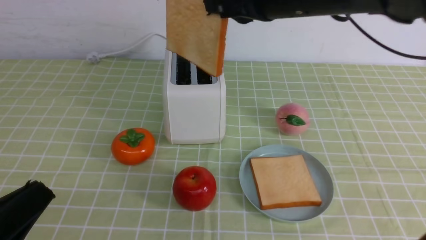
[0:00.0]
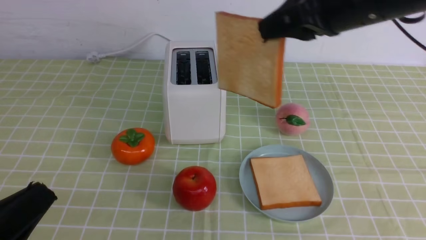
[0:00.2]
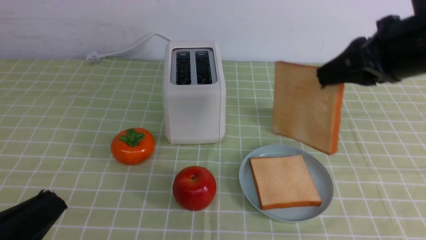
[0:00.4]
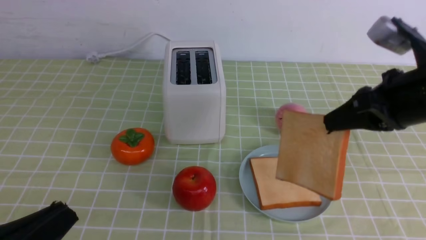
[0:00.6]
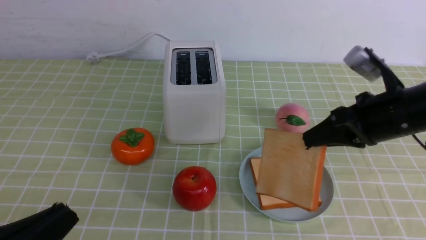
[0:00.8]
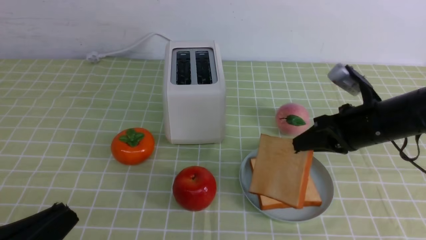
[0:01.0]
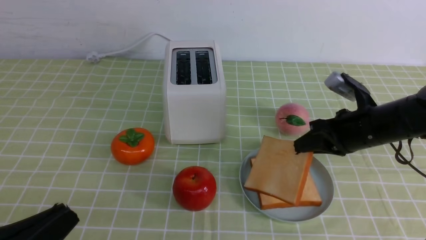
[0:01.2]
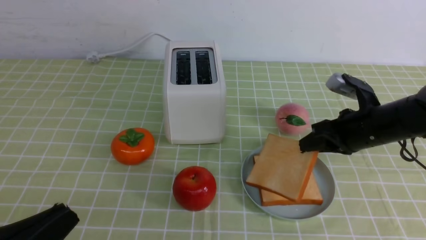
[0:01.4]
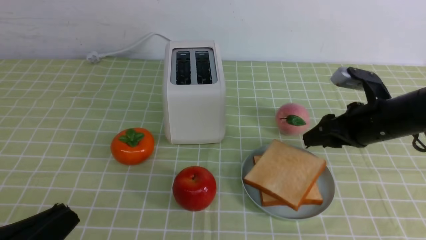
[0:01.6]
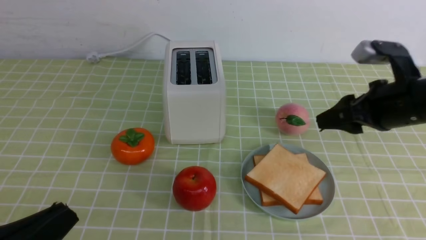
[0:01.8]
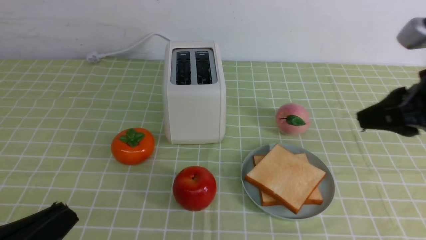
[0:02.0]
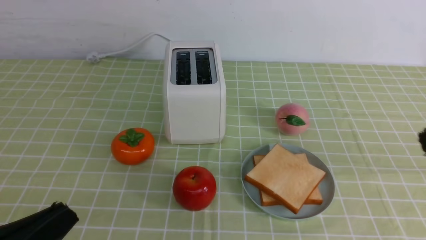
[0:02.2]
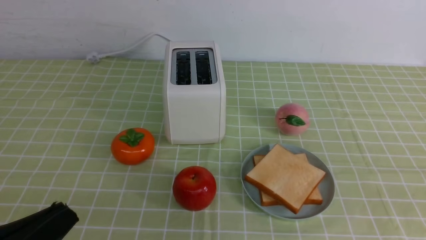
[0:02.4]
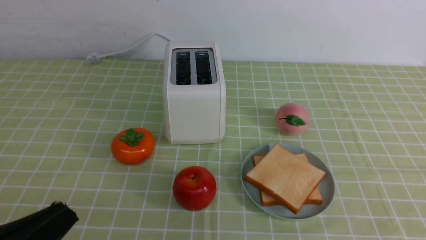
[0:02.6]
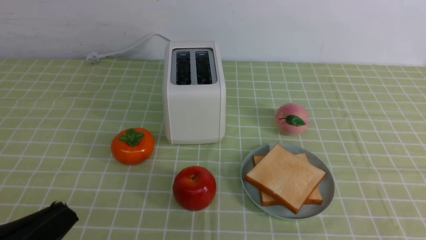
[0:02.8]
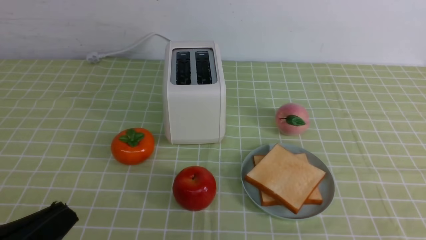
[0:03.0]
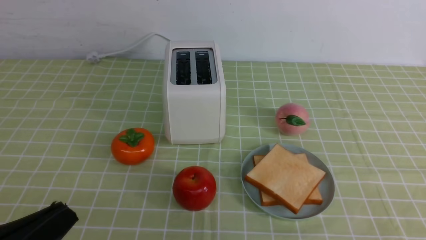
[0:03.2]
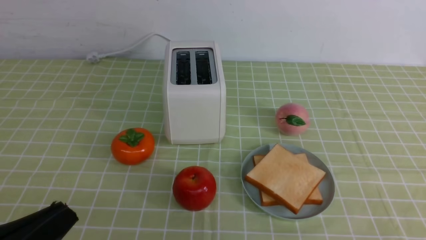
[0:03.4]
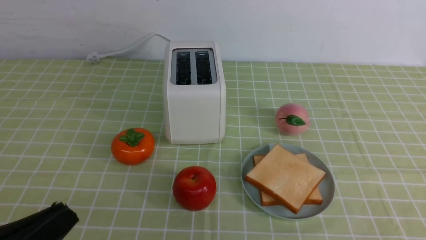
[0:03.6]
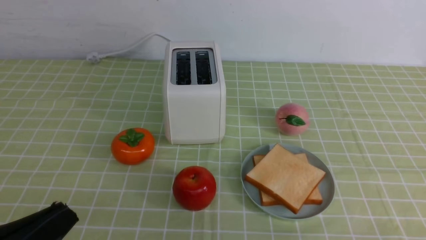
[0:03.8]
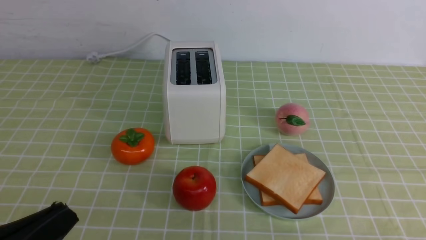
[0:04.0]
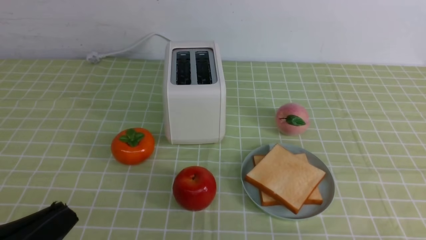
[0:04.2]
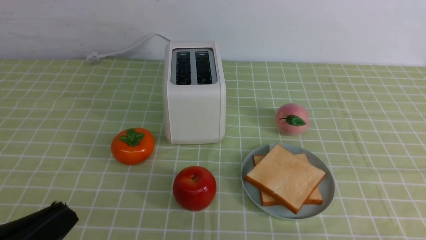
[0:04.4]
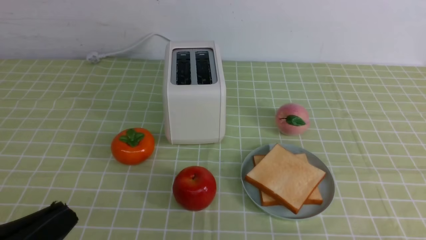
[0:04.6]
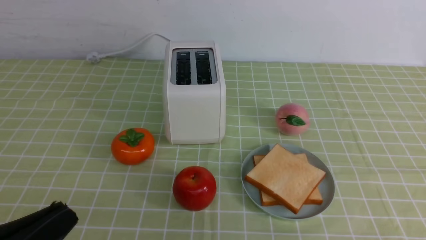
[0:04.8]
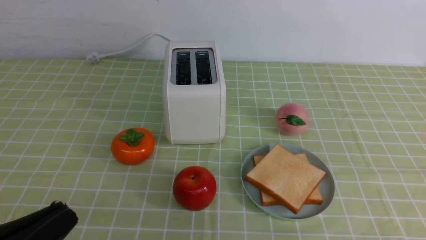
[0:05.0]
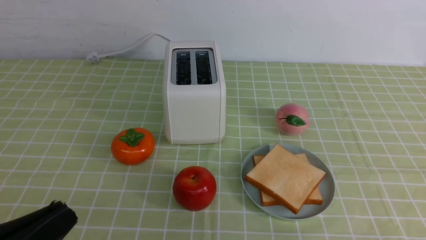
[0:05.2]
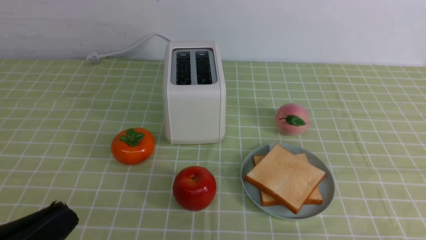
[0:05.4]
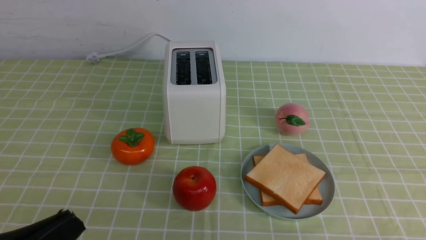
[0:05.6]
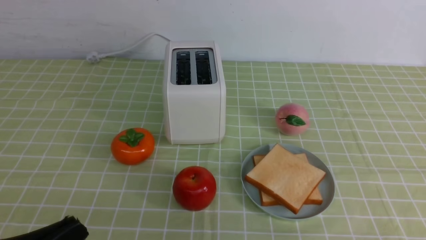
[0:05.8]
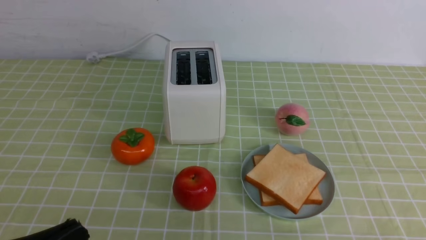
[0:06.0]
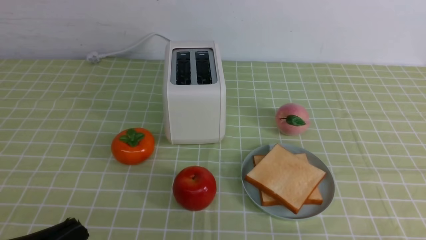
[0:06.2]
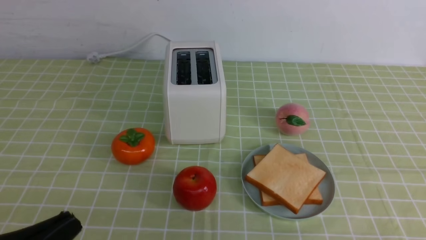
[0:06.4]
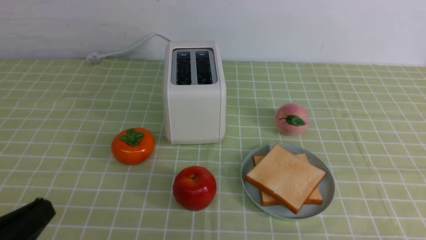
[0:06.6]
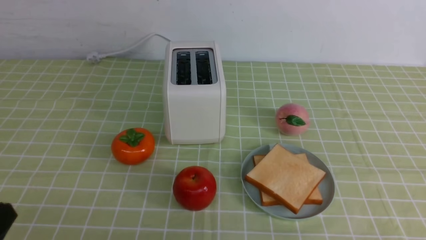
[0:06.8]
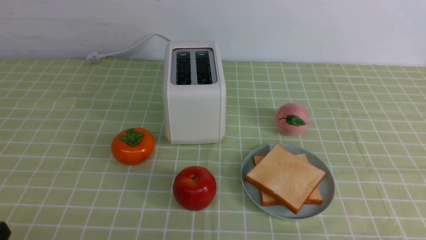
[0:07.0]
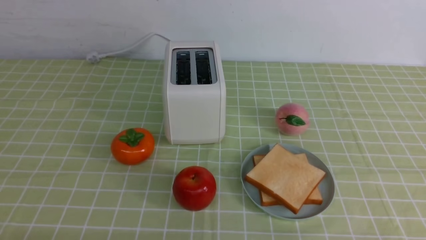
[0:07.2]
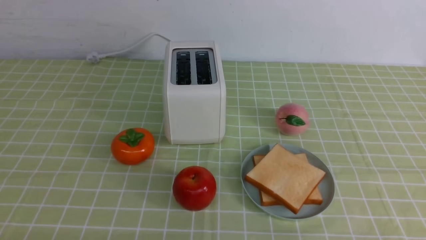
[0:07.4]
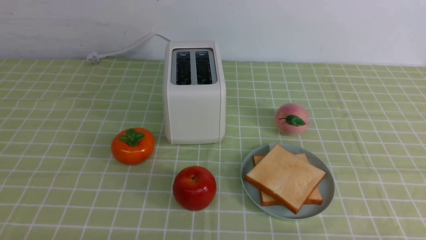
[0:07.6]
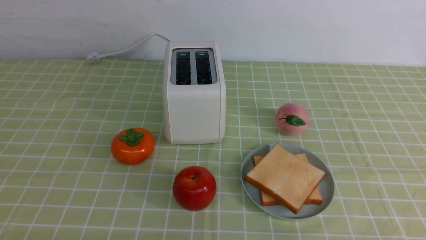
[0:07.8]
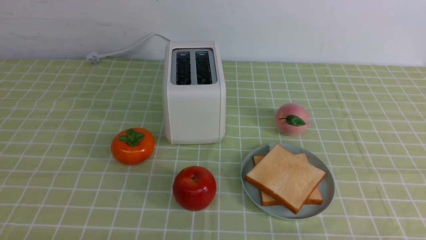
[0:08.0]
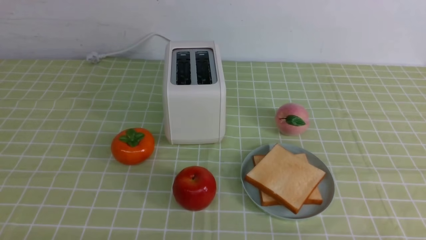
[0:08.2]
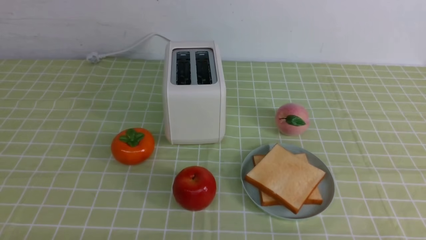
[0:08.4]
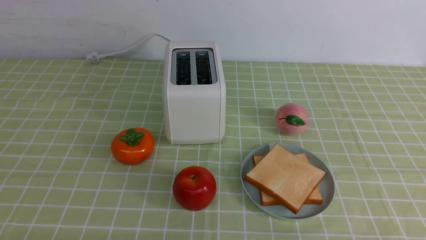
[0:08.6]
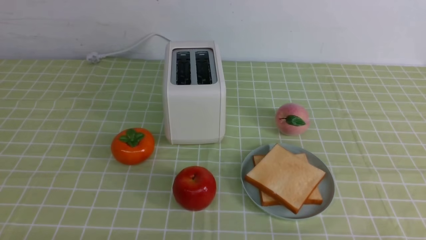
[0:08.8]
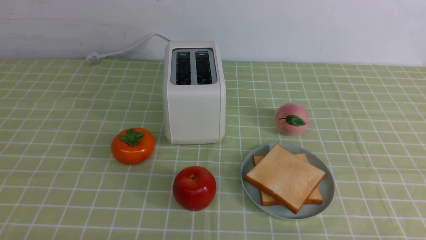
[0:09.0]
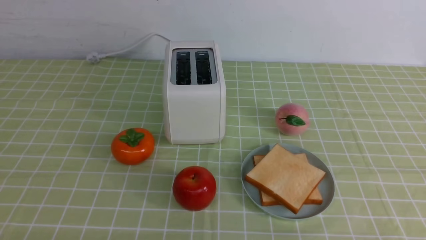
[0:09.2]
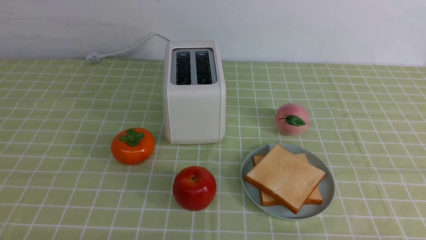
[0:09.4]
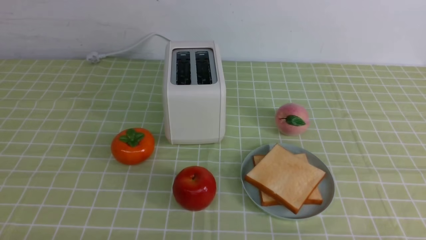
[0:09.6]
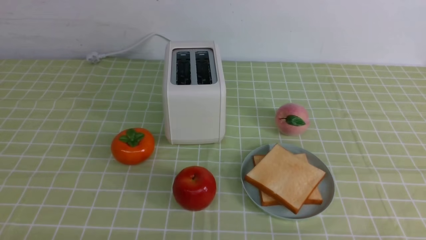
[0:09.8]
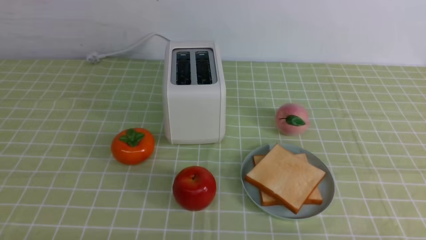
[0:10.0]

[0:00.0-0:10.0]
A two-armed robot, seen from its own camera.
Task of the whole recording: take toasted bread from bread machine on green coffee tablecloth place on plate.
Step, 0:00.0 to 0:01.8: use the right arm to put a slice of bread into the plate.
0:00.0 to 0:01.4: The right gripper moves downward and to the right, approximately 25 cm.
0:01.4 to 0:02.8: The right gripper travels backward by some 30 cm, and closes up.
0:04.2 to 0:05.8: The two grippers keep their place.
0:05.8 to 0:07.2: The left gripper heads downward, covering approximately 10 cm.
0:08.6 to 0:10.0: The two grippers keep their place.

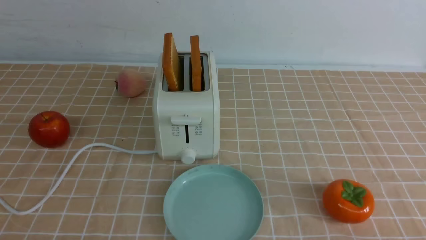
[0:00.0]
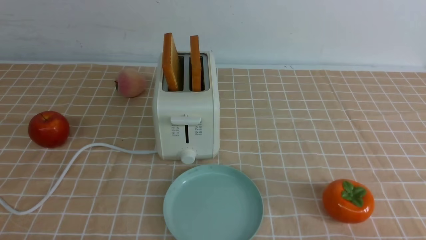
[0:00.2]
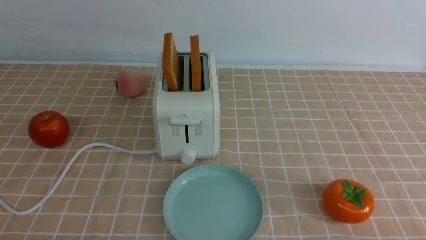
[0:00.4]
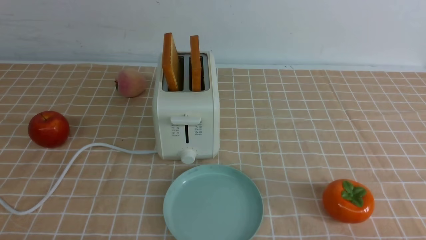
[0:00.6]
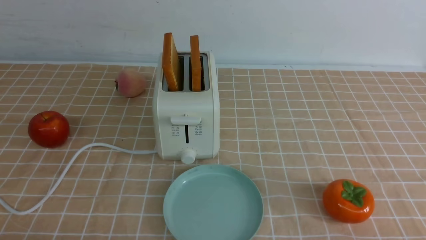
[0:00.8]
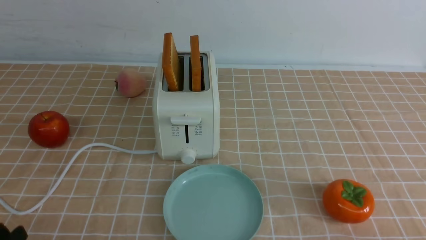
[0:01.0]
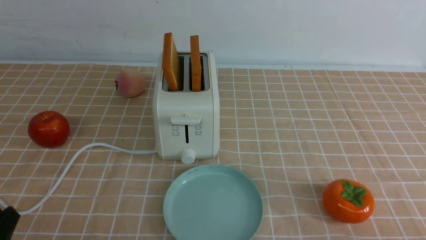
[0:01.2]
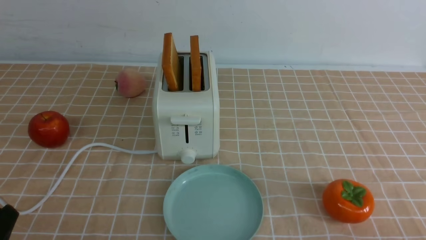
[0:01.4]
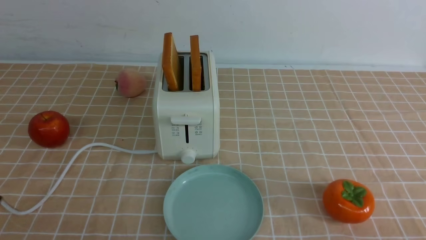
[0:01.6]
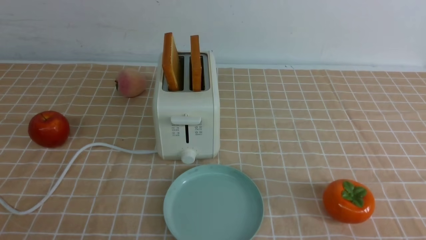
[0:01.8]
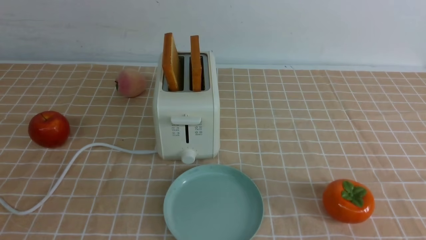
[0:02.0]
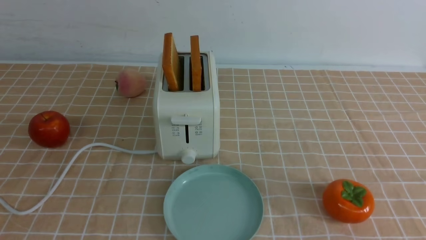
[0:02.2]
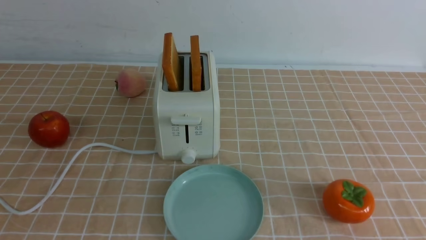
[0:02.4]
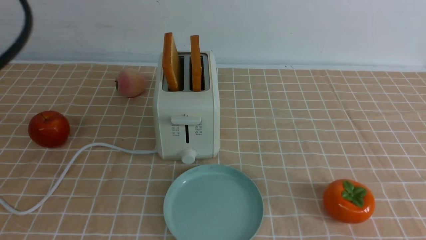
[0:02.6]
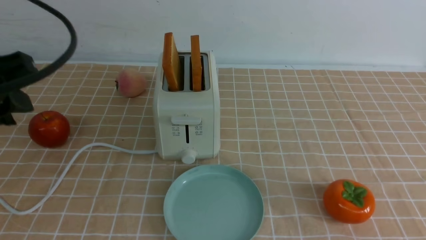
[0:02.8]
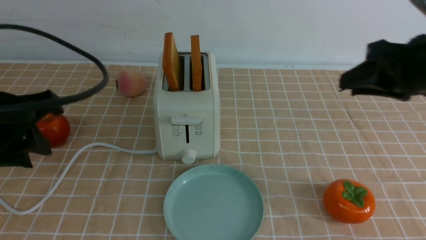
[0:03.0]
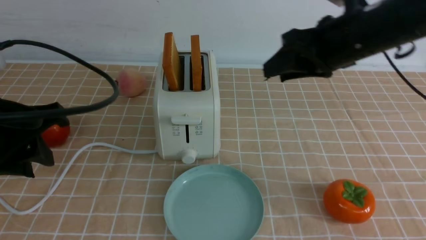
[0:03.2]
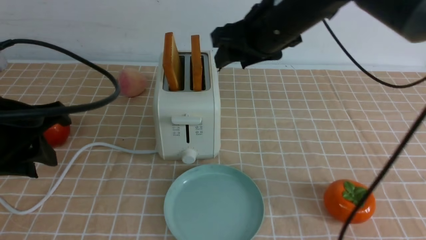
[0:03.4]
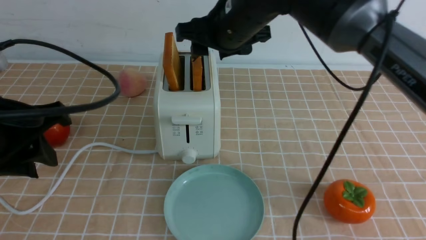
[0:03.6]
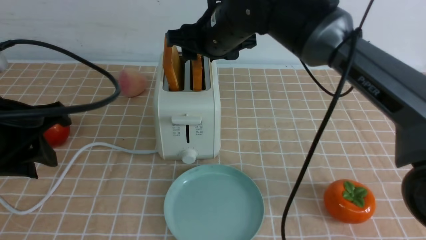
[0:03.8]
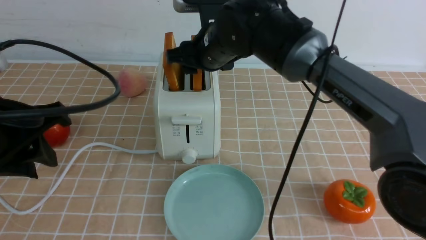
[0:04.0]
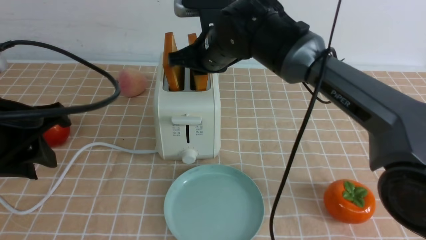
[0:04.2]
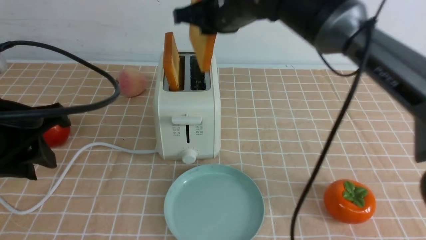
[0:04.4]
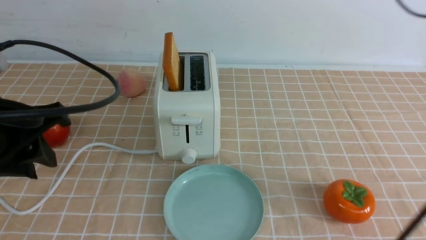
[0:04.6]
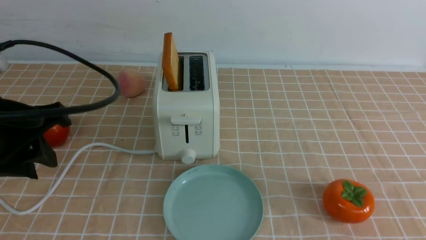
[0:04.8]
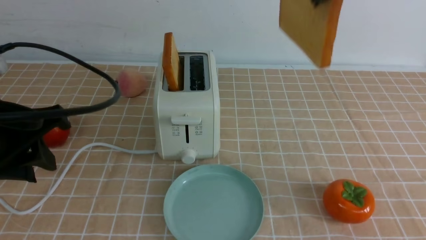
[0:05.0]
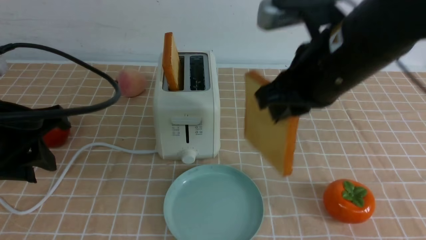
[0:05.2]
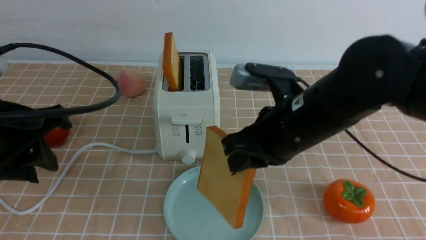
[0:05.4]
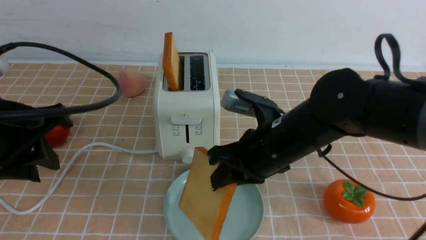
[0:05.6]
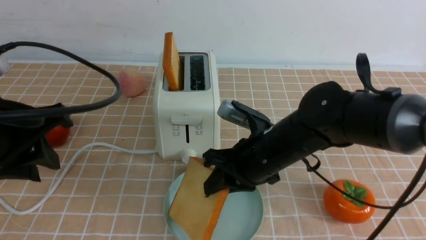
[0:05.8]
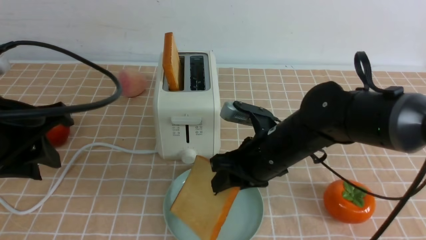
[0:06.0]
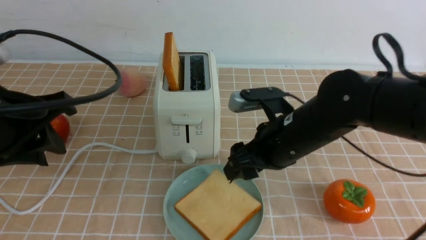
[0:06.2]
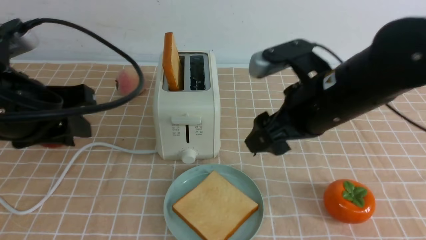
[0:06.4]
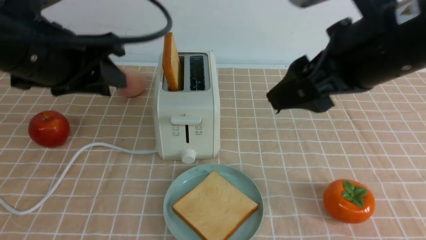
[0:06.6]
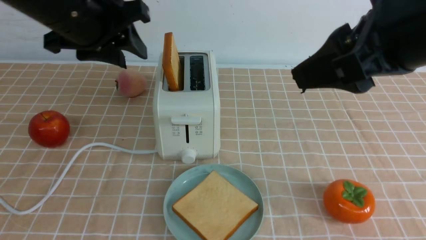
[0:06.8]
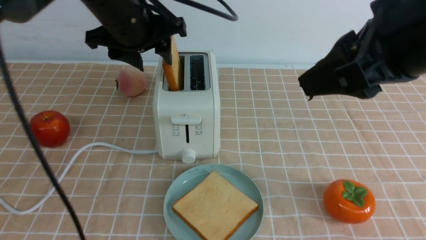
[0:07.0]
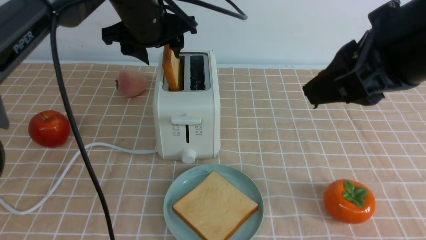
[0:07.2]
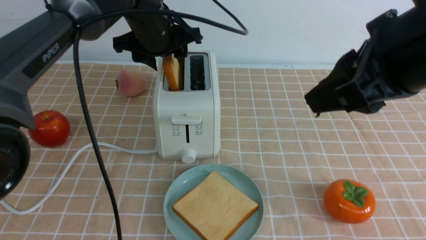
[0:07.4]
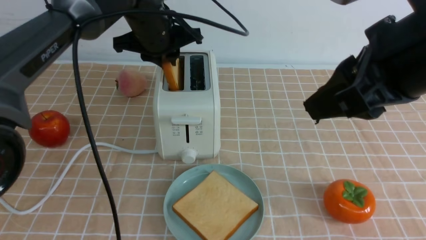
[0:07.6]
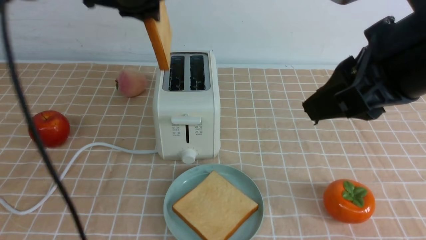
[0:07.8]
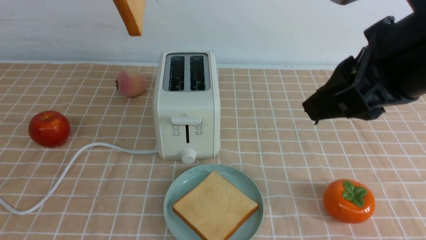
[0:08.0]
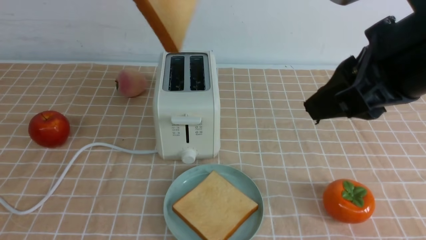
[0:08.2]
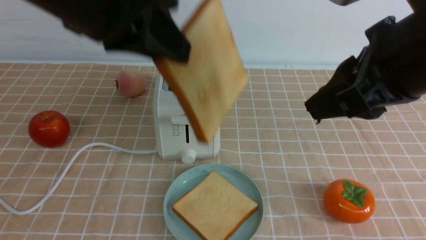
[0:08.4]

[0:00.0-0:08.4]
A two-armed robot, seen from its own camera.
Task of the whole recording: take toasted bread from bread machine on light coffee tablecloth place on plate.
Step, 0:00.0 to 0:04.2: use the right arm to take out a slice of bread.
Step, 0:04.4 to 0:06.2: use the right arm to put a slice of bread into the plate.
Step, 0:06.4 to 0:07.6: use the left arm to take out a slice of bread.
0:01.4 to 0:02.8: Both grippers travel together upward and forward, some 25 cm.
0:02.8 to 0:04.2: The right gripper moves to the left and forward, about 35 cm. The left gripper moves some 5 cm.
0:04.2 to 0:05.6: The right gripper travels backward and to the right by about 15 cm, and travels upward and back again, roughly 20 cm each way.
0:05.6 to 0:07.0: The right gripper heads upward, to the right and backward, covering about 20 cm, and opens; the left gripper shifts roughly 20 cm forward and to the right.
0:07.0 to 0:08.4: The left gripper travels backward and upward by roughly 15 cm, and closes.
